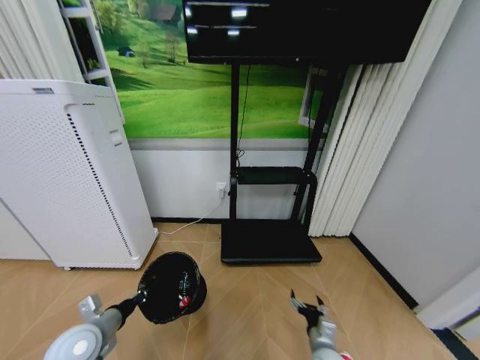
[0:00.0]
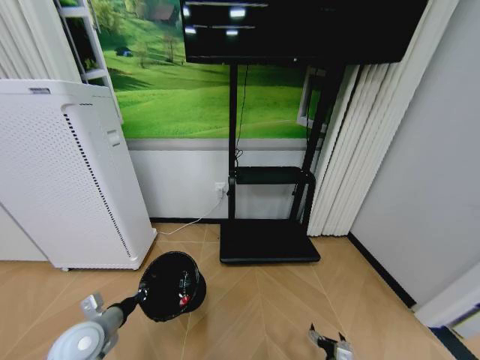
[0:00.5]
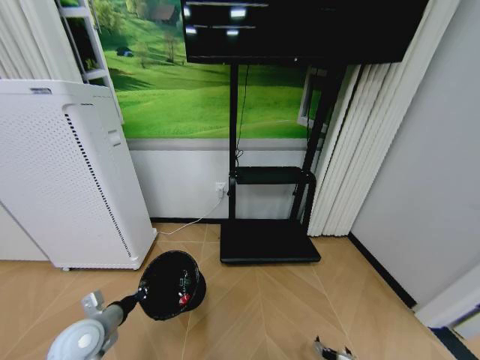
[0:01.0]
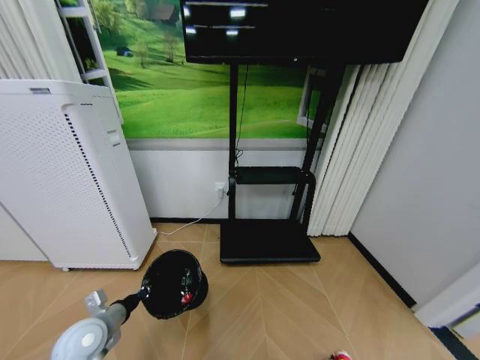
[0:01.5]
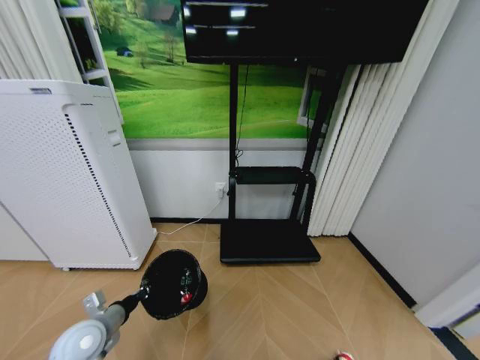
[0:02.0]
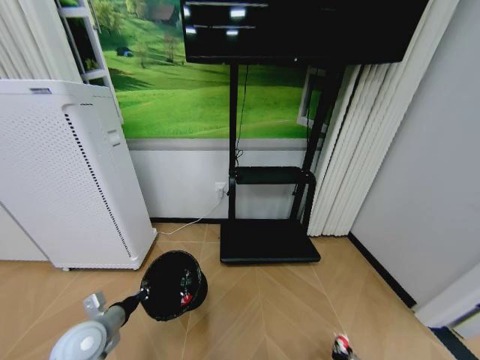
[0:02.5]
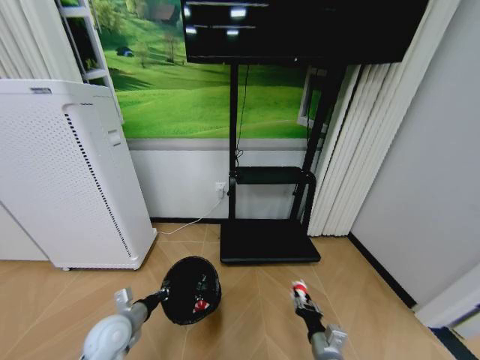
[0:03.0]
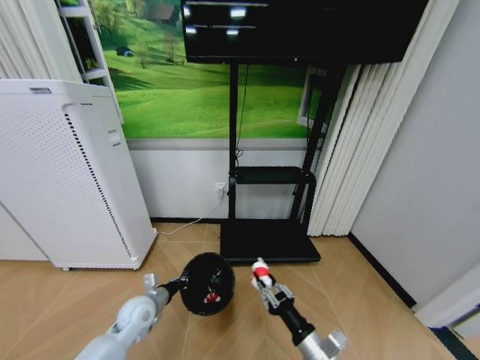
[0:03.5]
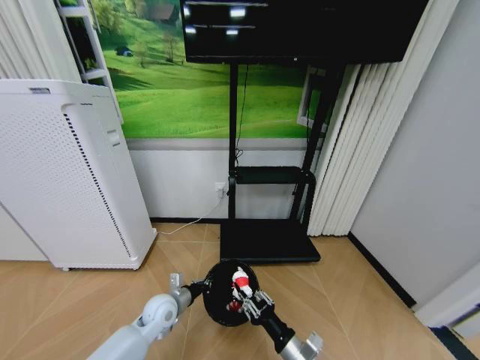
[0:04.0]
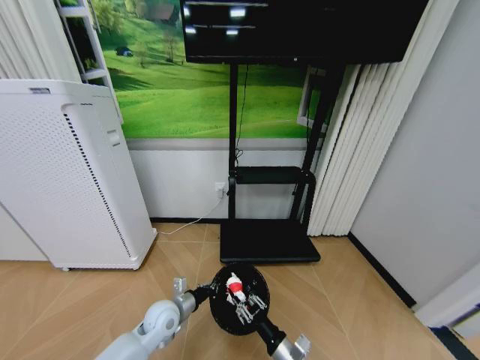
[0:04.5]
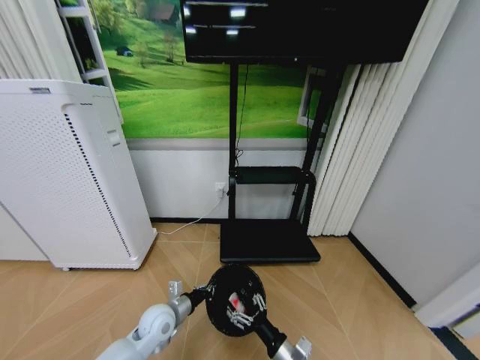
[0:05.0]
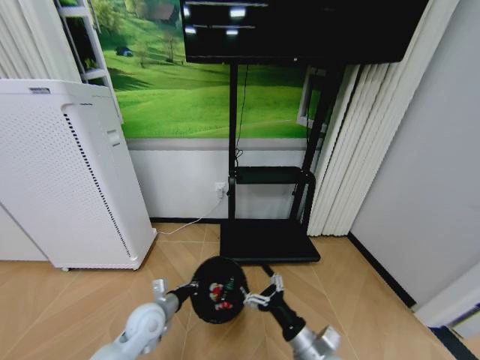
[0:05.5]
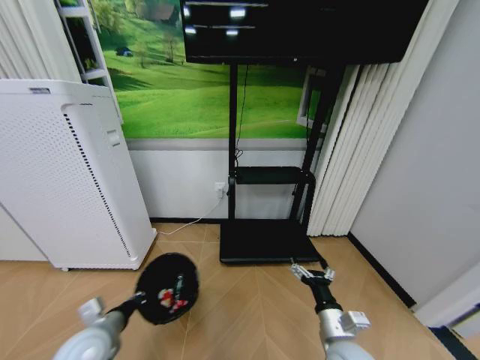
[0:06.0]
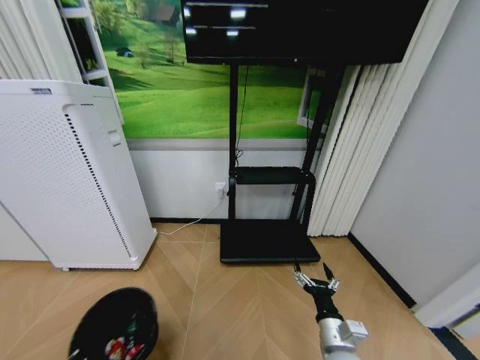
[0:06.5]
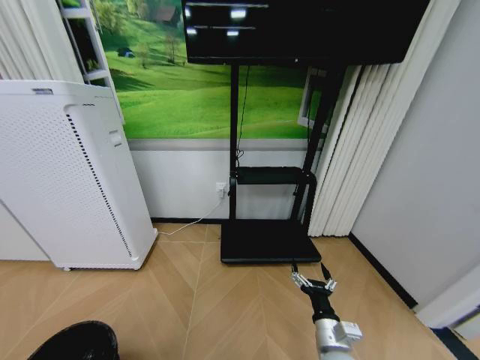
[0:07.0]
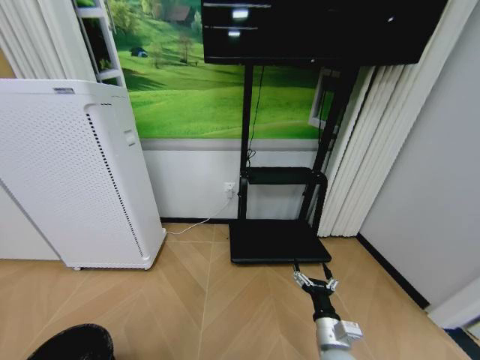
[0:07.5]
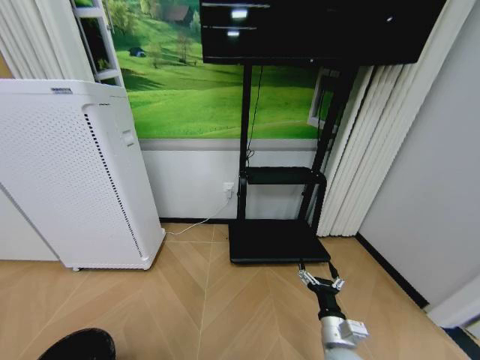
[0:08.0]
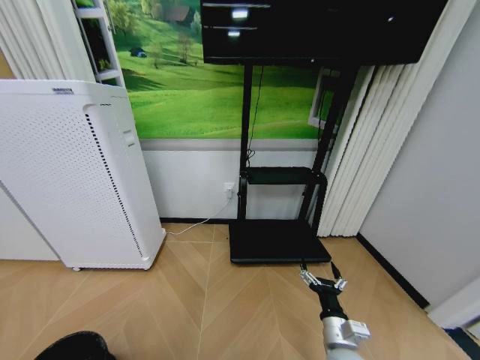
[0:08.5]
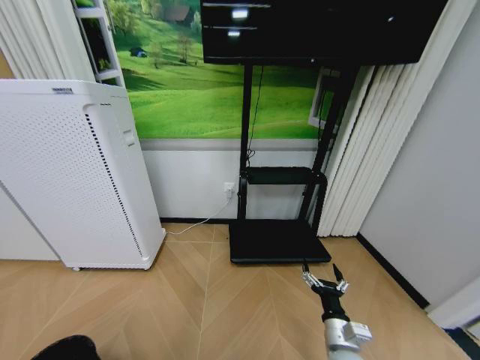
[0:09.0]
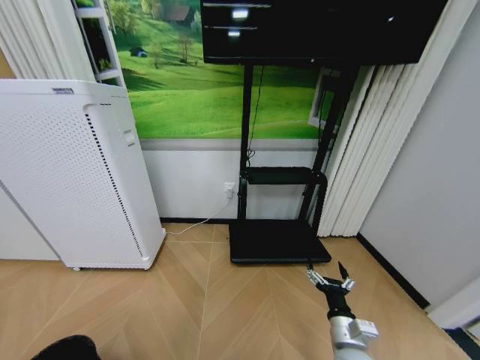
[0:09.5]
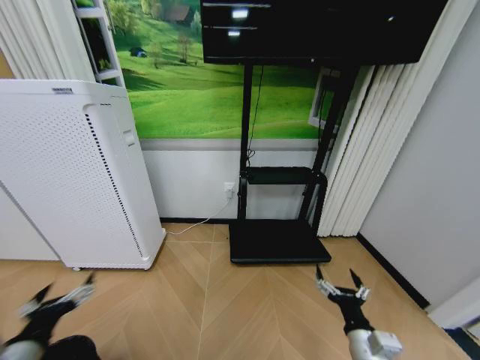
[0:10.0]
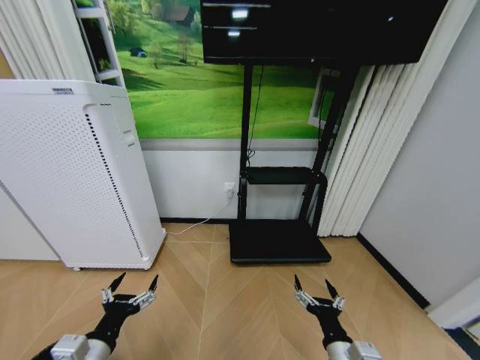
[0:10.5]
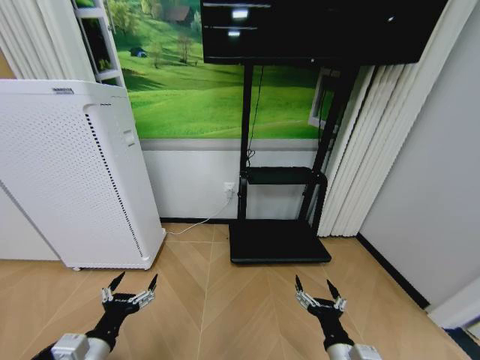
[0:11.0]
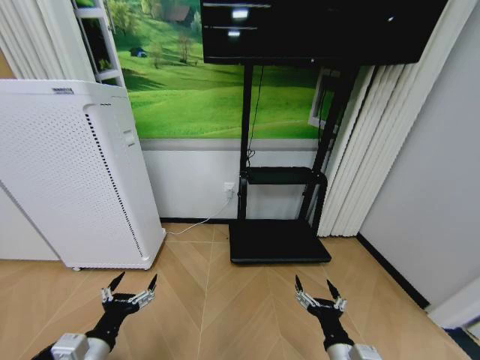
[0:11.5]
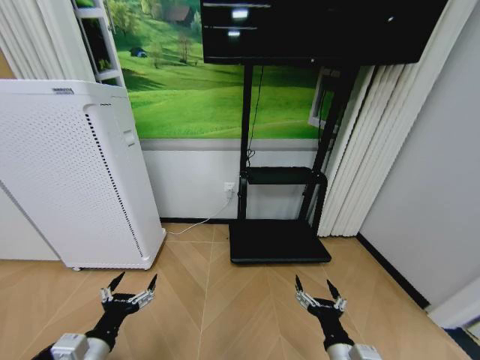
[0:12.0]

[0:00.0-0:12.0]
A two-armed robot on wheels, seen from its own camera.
Task of the whole recording: Pick up the trash bin and place the garbage on the floor into it.
0:00.0 to 0:02.0: The right gripper is displaced downward, to the right and backward by approximately 20 cm, and closes up.
0:02.0 to 0:04.0: The right gripper is displaced upward and to the left by roughly 30 cm, and closes its fingers. The left gripper shifts about 20 cm to the right, forward and downward.
0:04.0 to 0:06.0: The right gripper travels to the right by roughly 5 cm, and opens up, while the left gripper heads to the left, backward and upward, covering approximately 15 cm.
0:06.0 to 0:08.0: The left gripper shifts about 25 cm backward and to the left.
0:08.0 to 0:10.0: The left gripper heads upward, to the right and forward, covering approximately 20 cm, and opens its fingers, while the right gripper changes place by about 5 cm.
0:10.0 to 0:12.0: The left gripper travels to the right by roughly 5 cm; the right gripper heads to the left, covering some 5 cm.

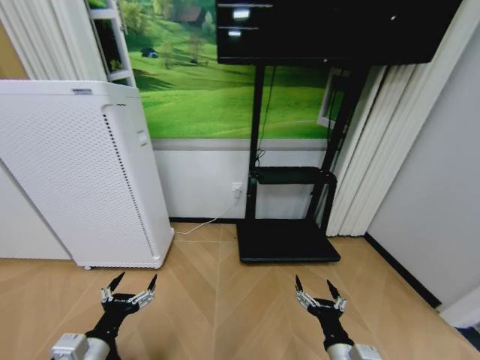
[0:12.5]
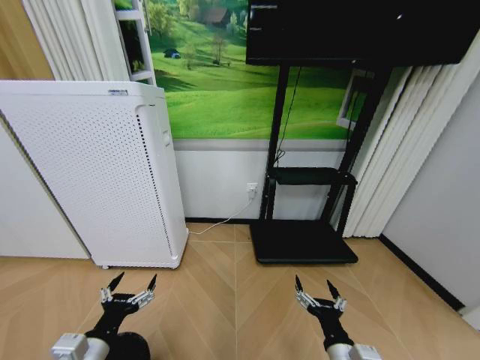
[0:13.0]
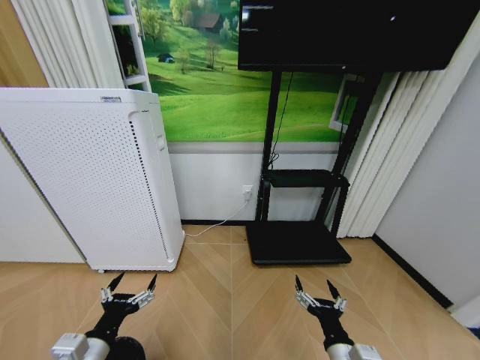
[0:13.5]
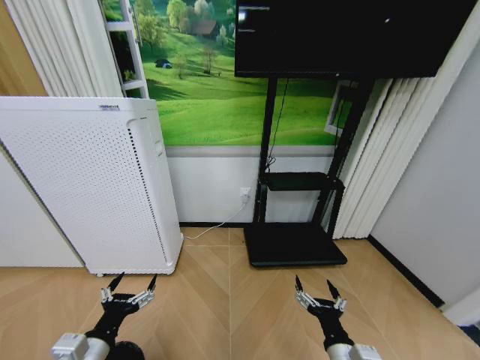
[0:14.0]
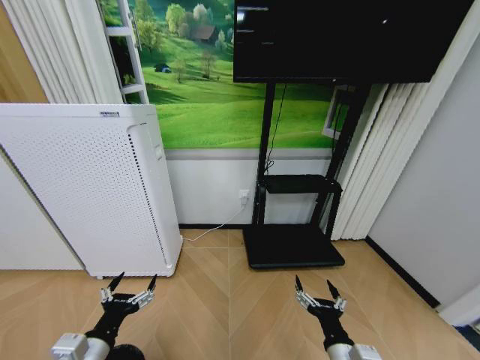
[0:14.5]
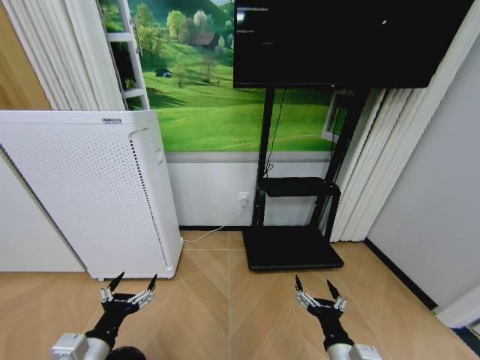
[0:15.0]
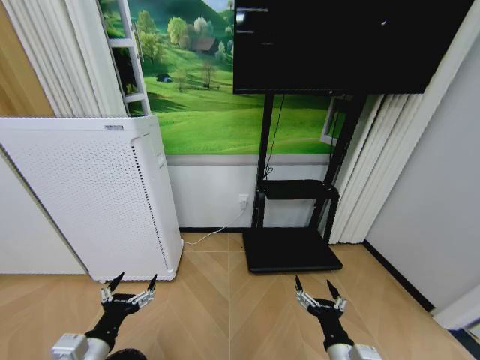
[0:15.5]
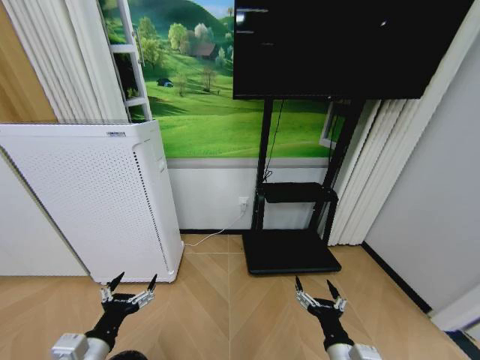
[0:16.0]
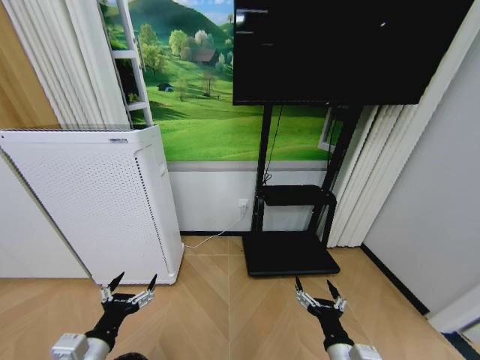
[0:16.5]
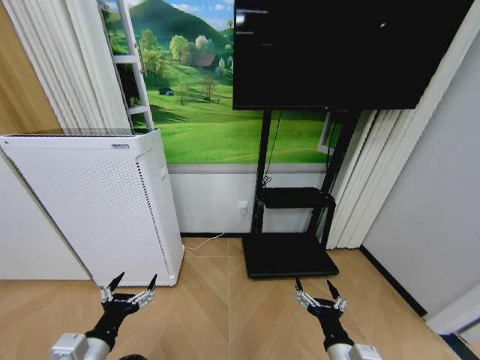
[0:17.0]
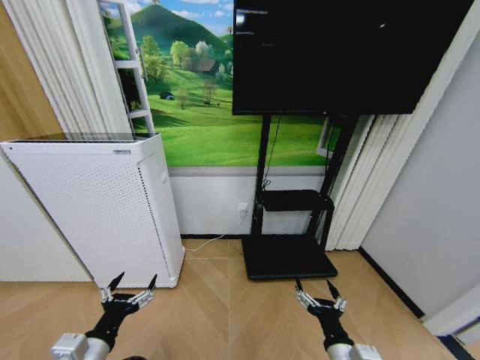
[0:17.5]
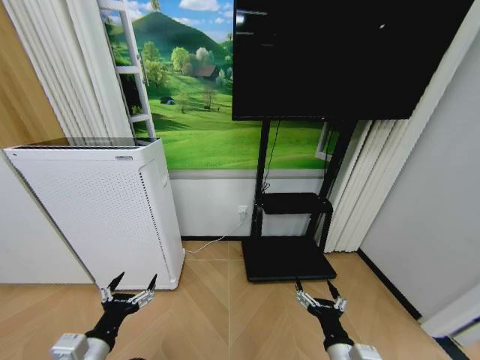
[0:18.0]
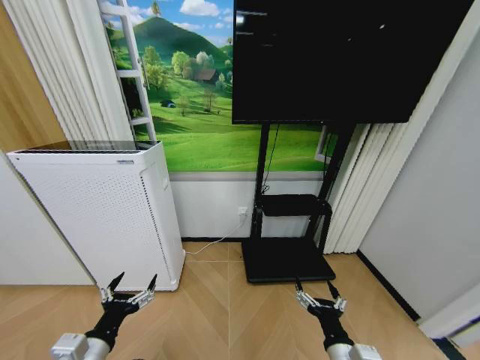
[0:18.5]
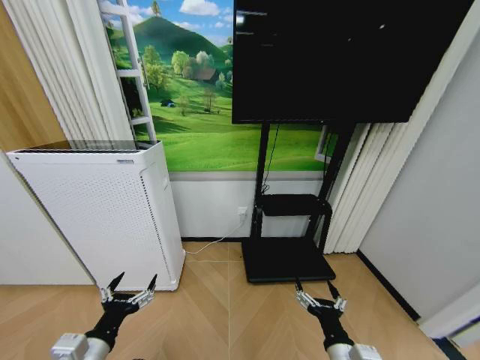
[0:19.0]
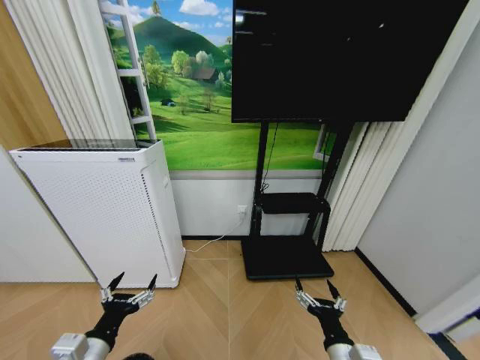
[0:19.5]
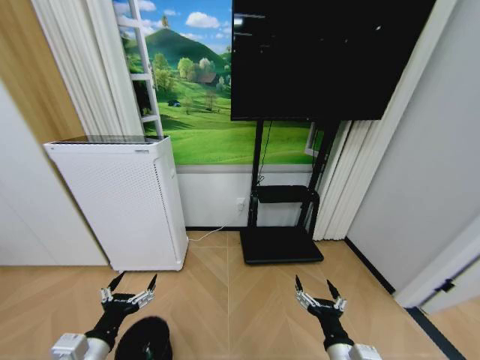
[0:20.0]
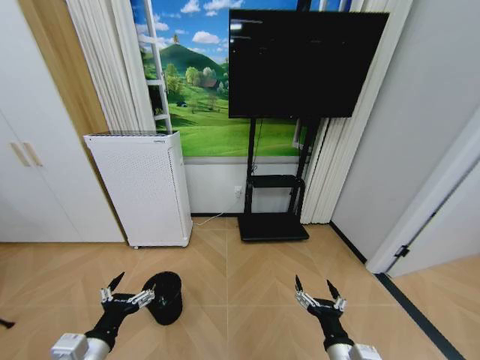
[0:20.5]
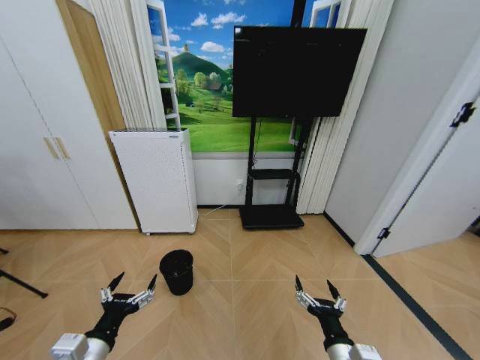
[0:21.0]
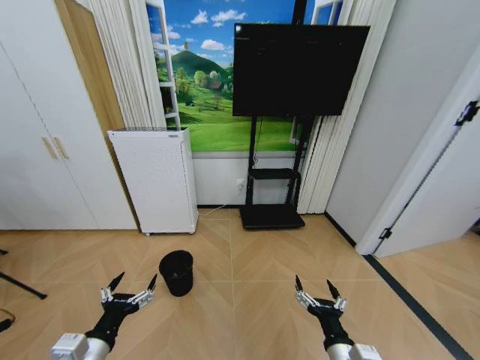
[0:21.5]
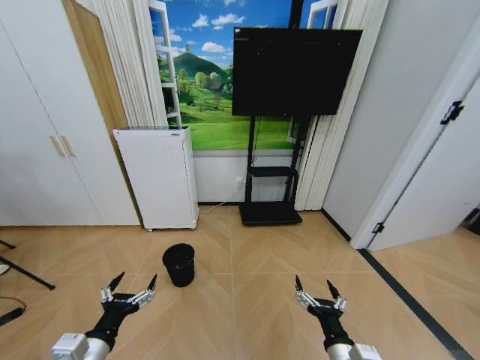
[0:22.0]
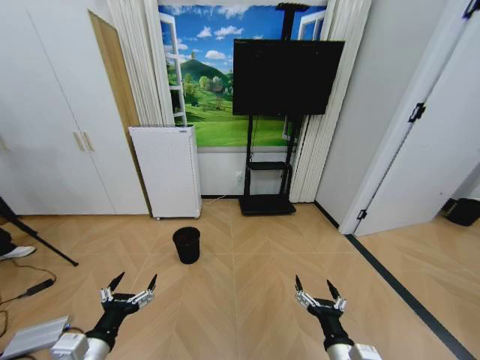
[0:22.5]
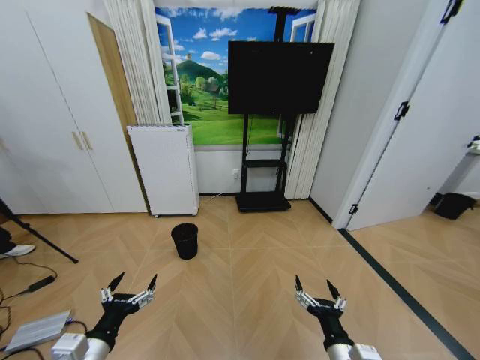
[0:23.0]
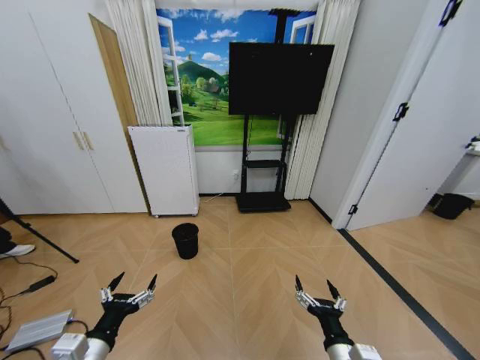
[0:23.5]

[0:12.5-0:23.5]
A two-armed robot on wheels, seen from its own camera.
Task of the whole recording: Pick up the trash bin and place the garbage on the floor into it.
0:14.5 to 0:18.0: The two grippers keep their place.

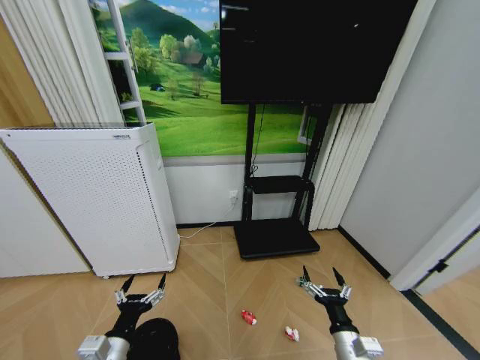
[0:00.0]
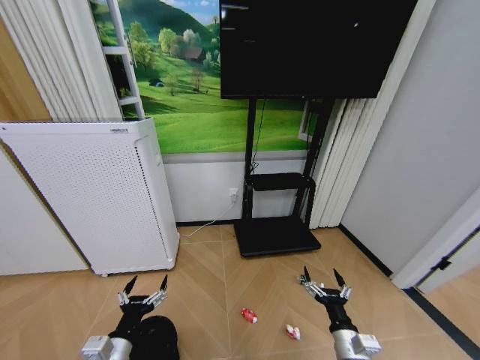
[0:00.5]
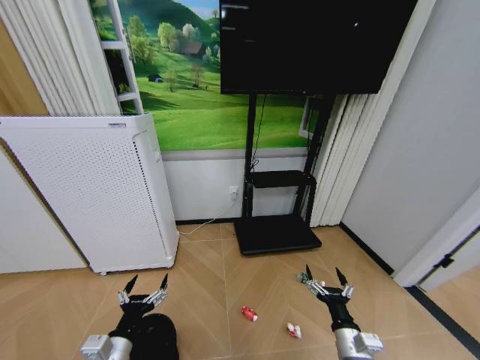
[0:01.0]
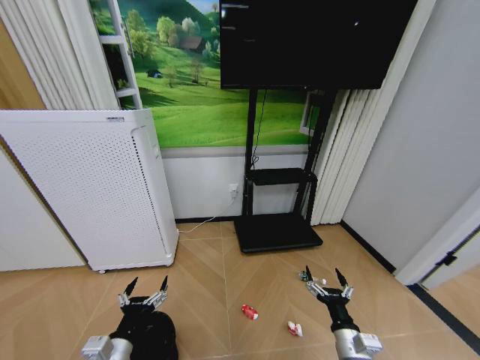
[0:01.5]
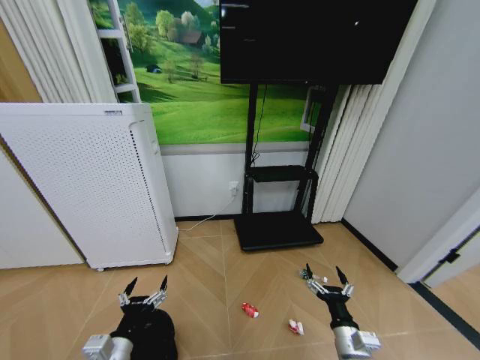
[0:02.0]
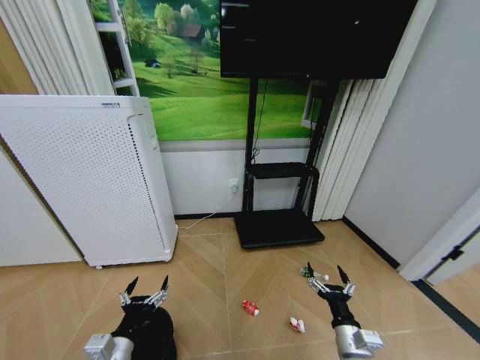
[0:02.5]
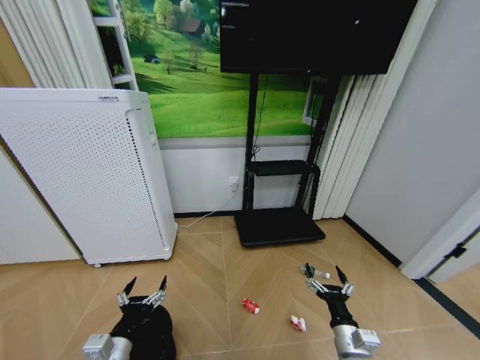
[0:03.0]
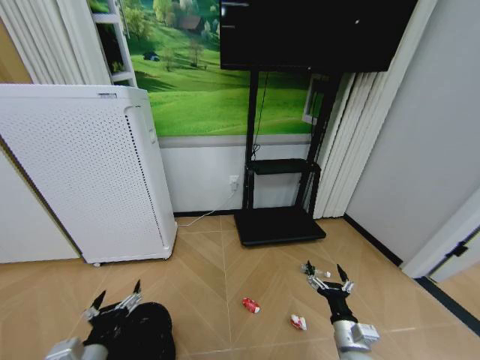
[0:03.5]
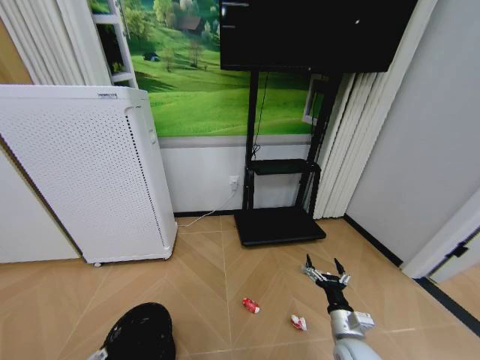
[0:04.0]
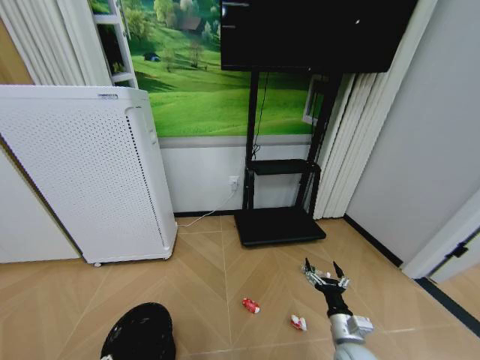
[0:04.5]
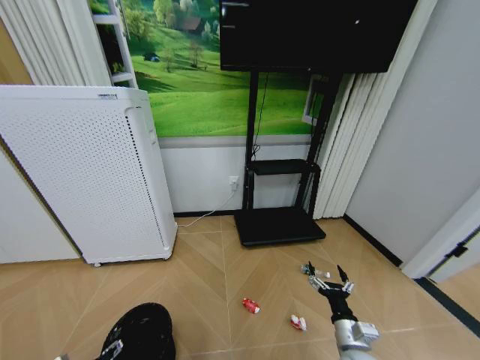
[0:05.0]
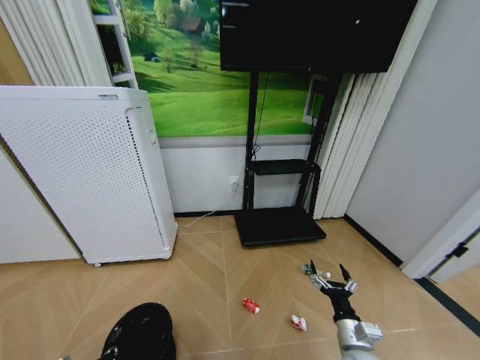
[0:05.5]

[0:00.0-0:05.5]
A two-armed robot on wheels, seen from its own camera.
Task of the whole recording: Pick up the trash bin and place the garbage on the floor into it.
0:02.0 to 0:03.5: The grippers stay close to where they were, moving slightly.
0:03.5 to 0:05.5: The left gripper is displaced downward and to the left by approximately 15 cm, and closes up.
